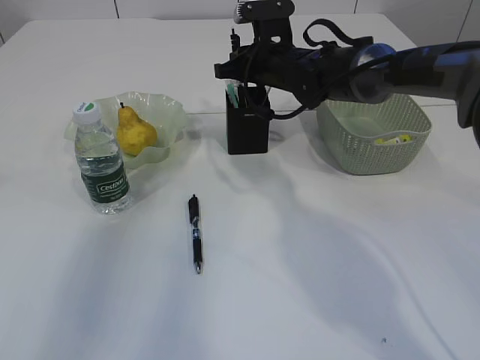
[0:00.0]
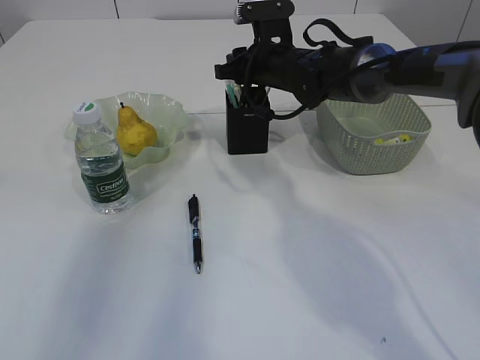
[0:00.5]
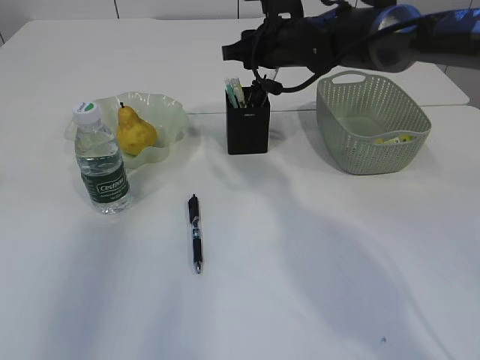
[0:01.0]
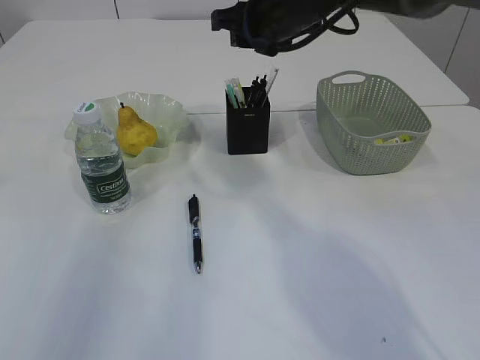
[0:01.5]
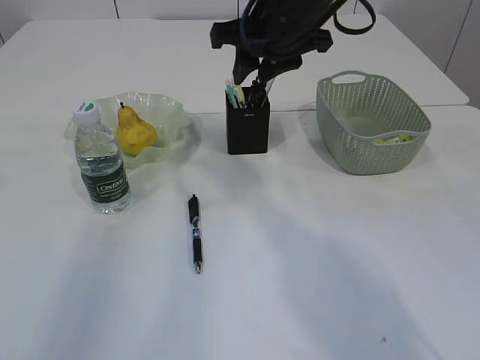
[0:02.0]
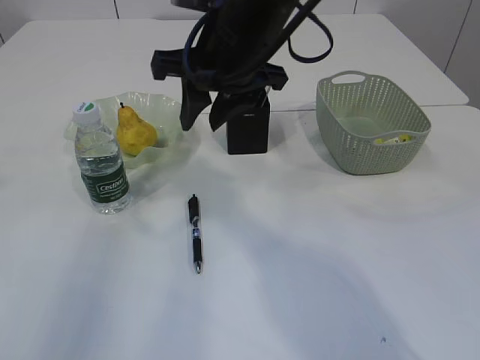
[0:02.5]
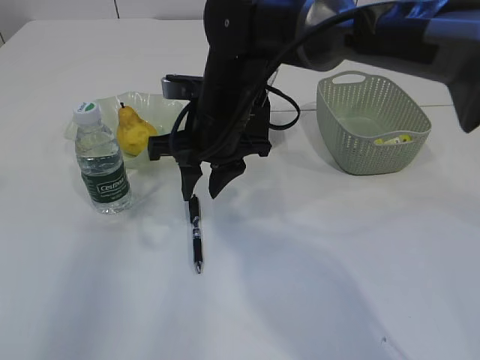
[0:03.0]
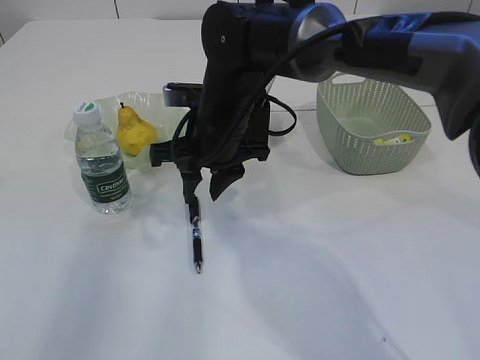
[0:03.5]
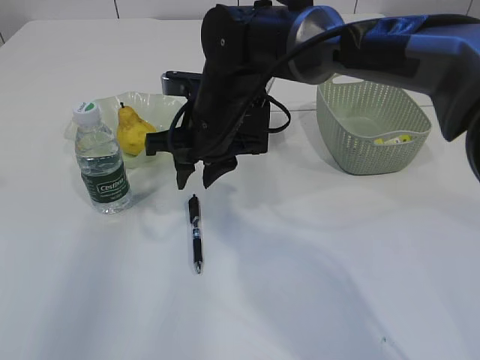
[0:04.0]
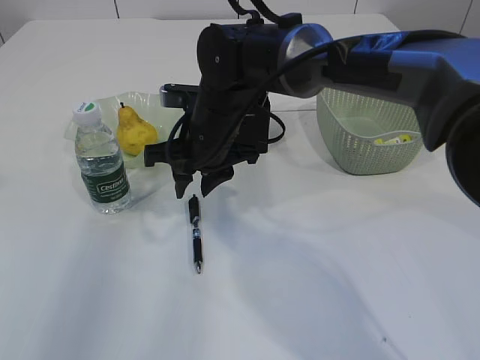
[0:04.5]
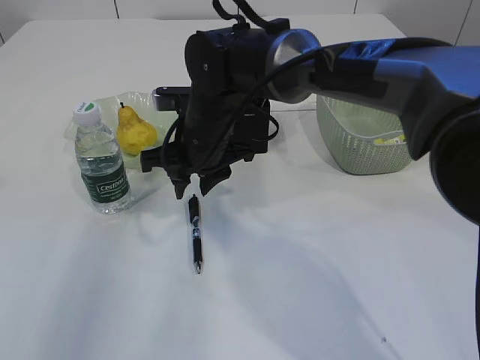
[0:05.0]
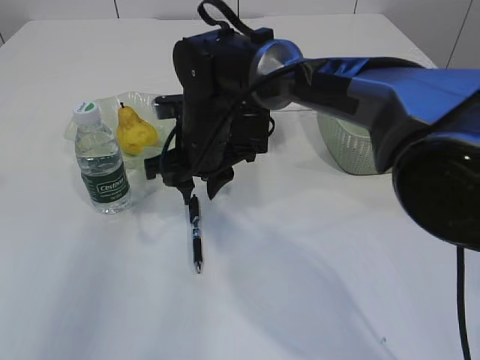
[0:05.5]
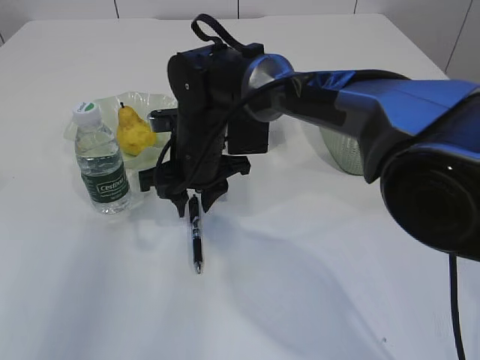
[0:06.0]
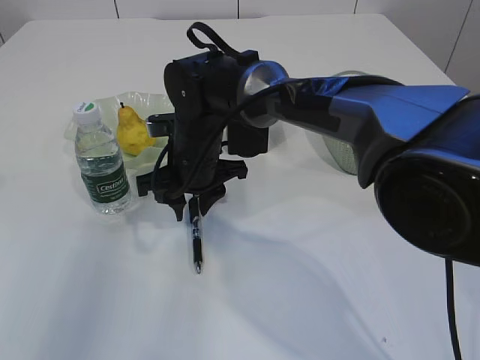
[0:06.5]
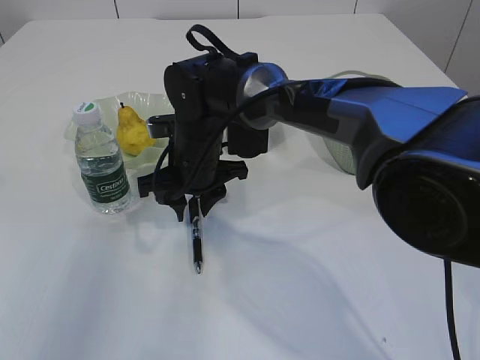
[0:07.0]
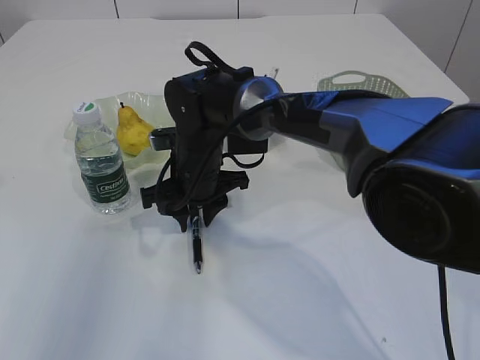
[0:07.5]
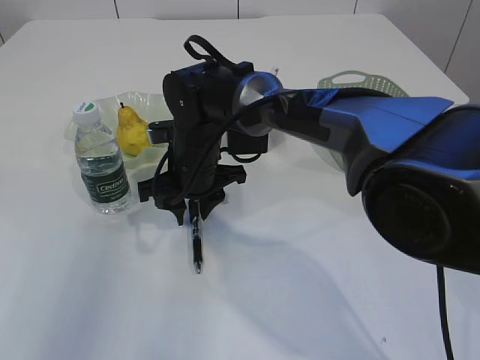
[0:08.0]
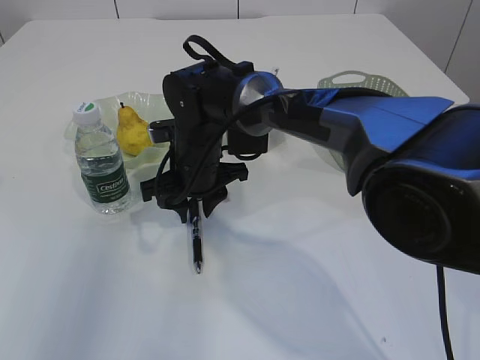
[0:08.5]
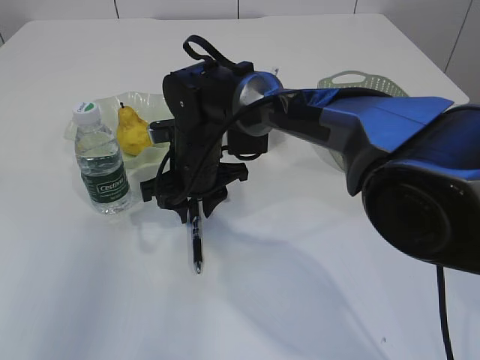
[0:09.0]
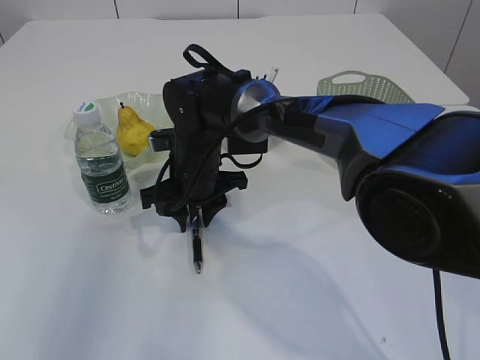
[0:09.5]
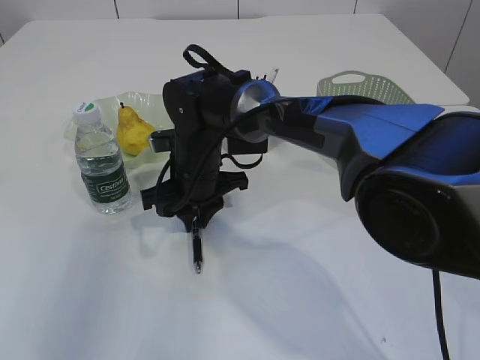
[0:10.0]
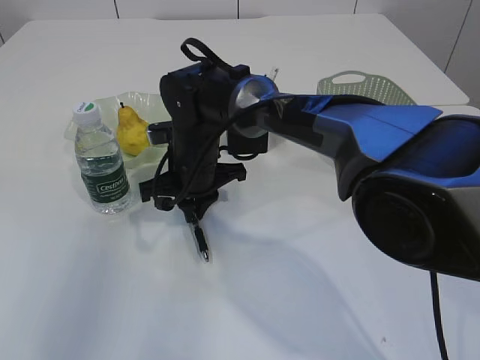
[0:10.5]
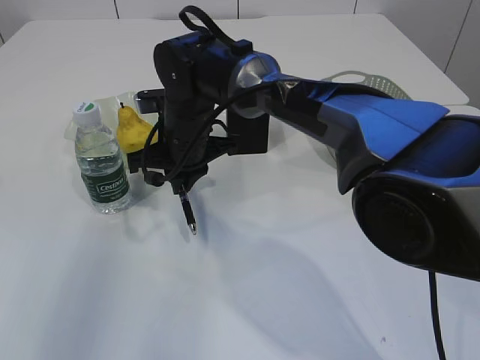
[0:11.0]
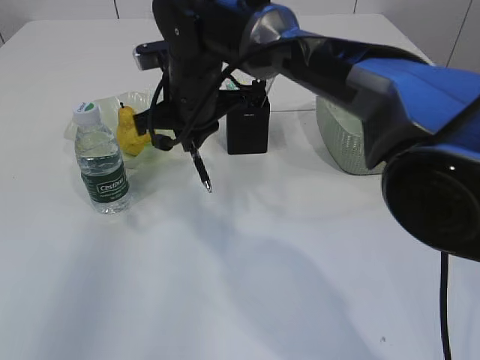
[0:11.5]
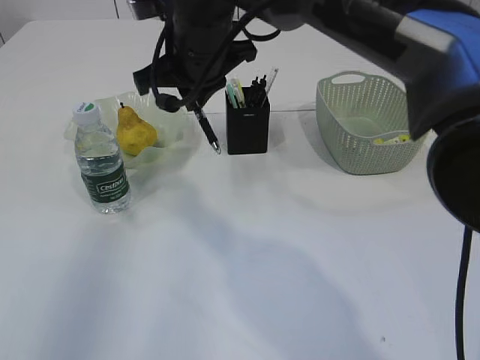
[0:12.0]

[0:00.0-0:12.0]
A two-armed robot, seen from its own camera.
Step, 0:01.5 to 0:10.5: Pick up the pen with right arm.
0:00.0 to 0:02.0: The right gripper is displaced upward and backward by about 15 cm, and opens.
0:02.0 to 0:04.0: The right gripper shifts approximately 15 cm downward and to the left.
0:06.0 to 0:08.0: The grippers move only a little.
0:08.0 to 0:10.0: Neither gripper changes place.
0:10.0 to 0:12.0: The right gripper heads upward, covering about 15 cm.

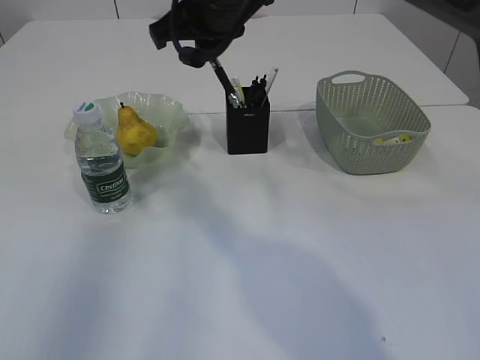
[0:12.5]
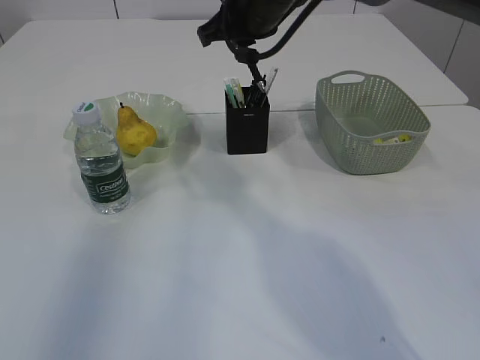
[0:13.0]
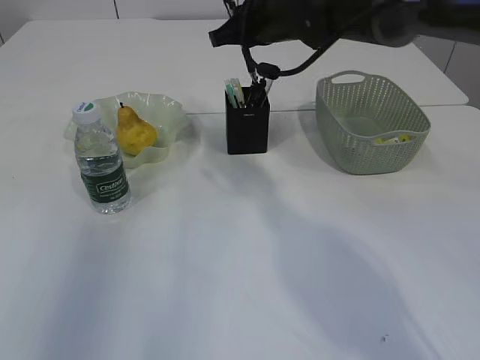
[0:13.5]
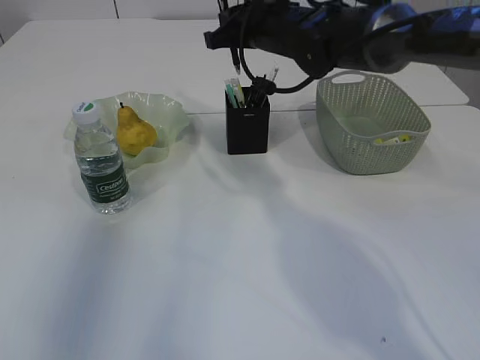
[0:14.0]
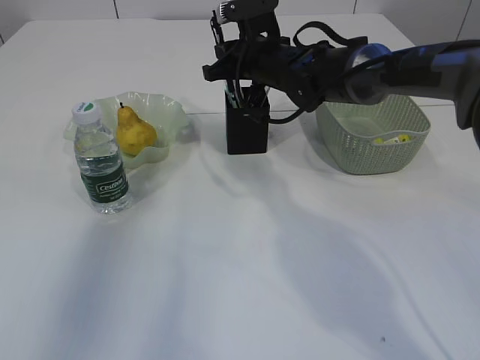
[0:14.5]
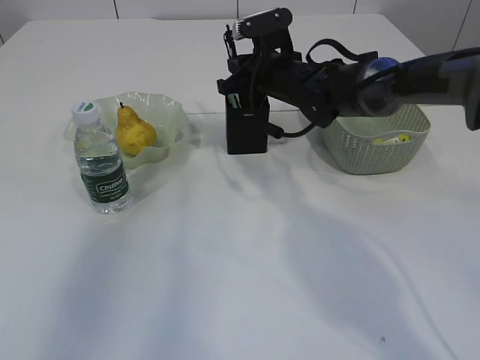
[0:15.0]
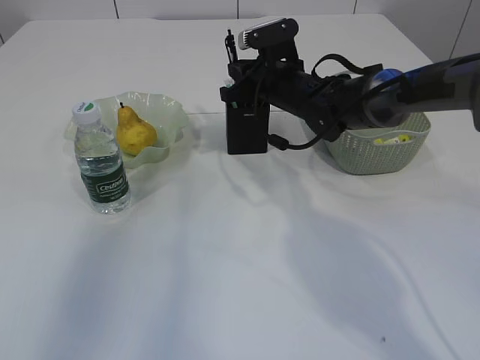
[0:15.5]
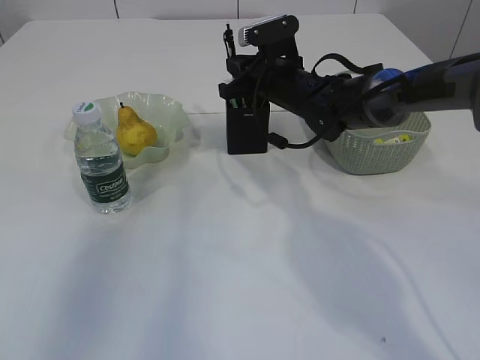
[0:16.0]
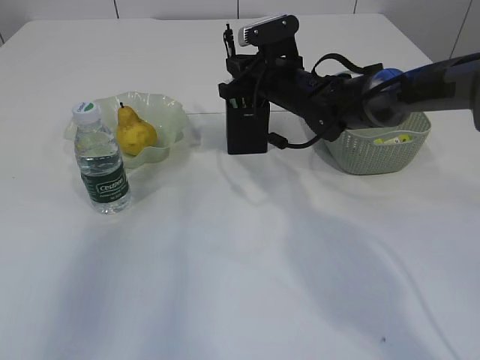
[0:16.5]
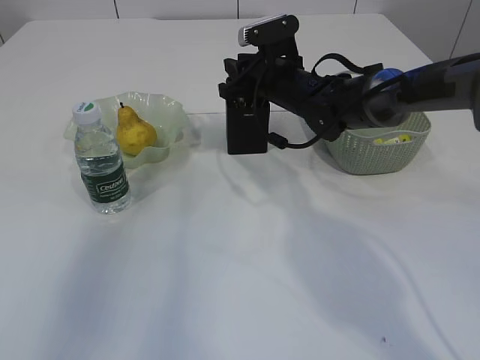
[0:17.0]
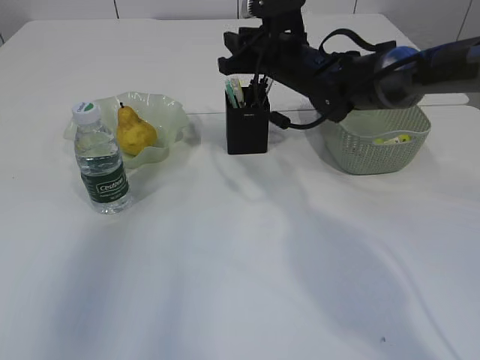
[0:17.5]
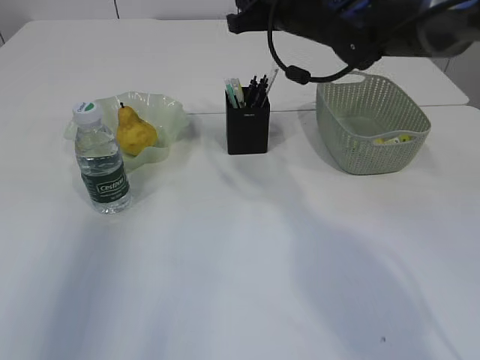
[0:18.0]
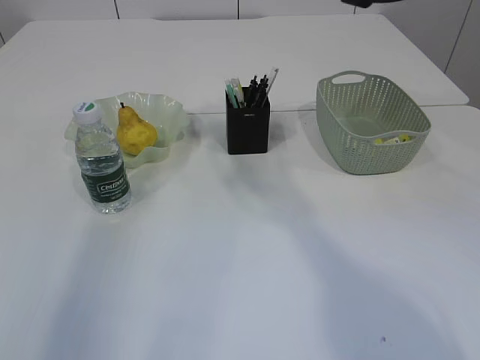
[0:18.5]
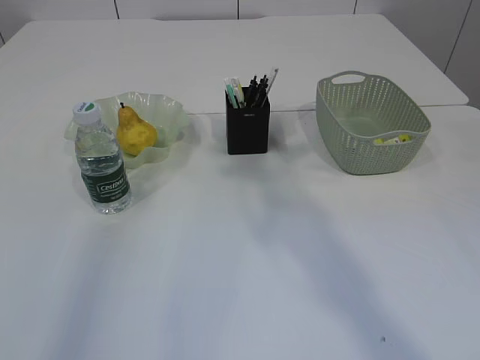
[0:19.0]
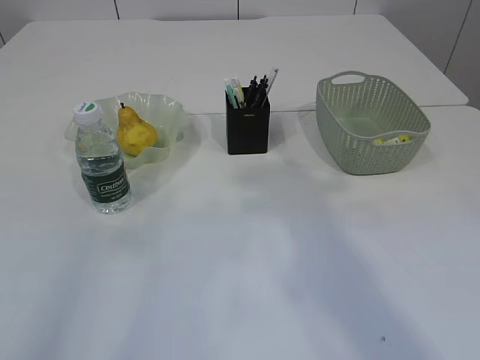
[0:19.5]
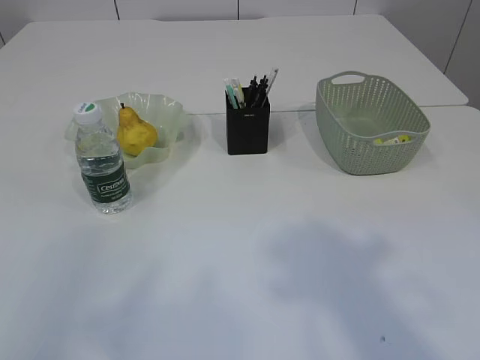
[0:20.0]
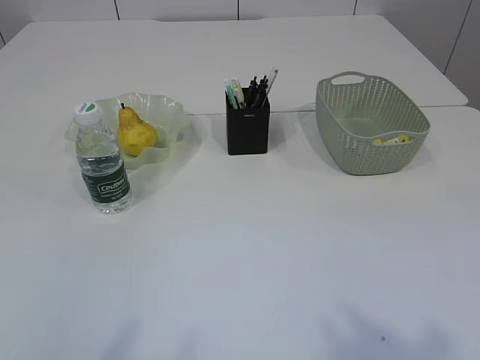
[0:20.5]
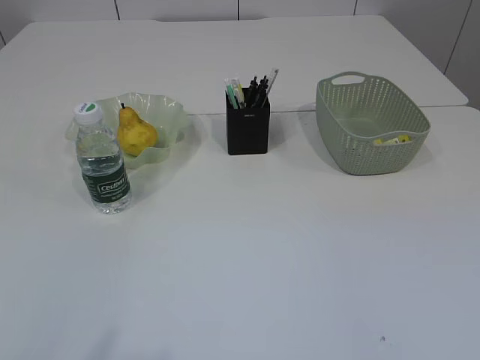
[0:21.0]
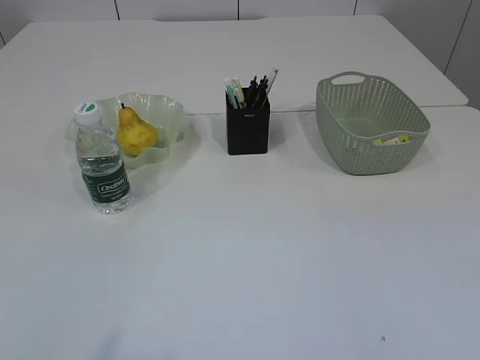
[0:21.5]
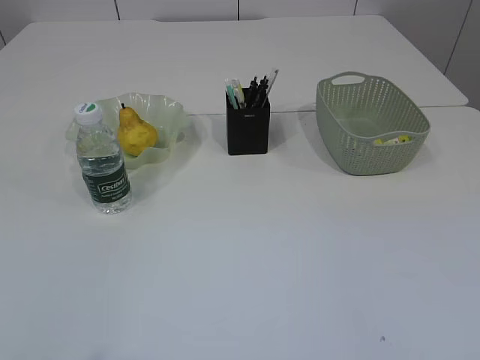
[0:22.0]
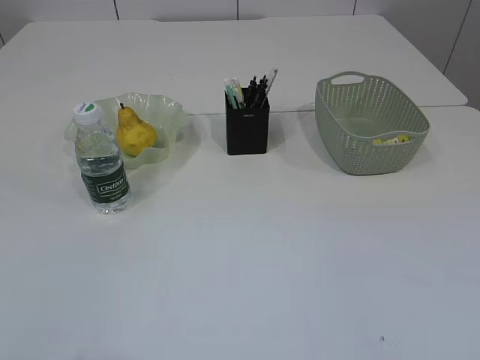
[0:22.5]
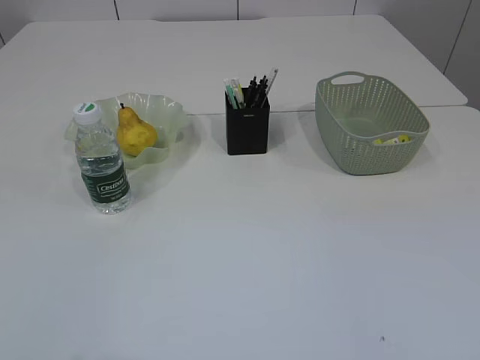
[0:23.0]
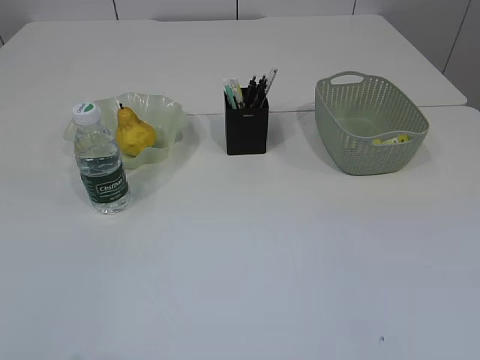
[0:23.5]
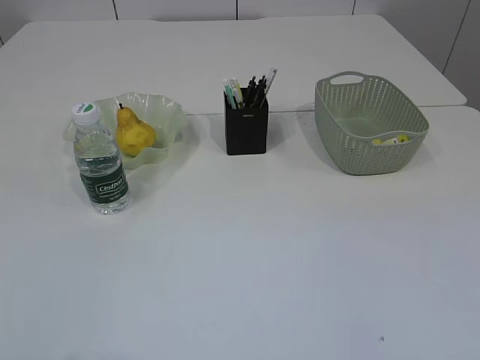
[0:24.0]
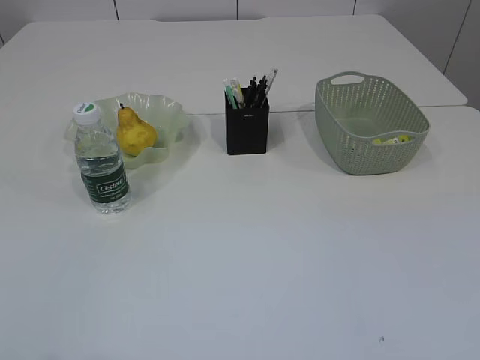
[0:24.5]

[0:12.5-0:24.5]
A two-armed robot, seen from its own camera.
Step, 0:12.5 to 0:17.0: Place the pen into the pen holder.
0:12.5 to 0:14.5: The right gripper travels downward, forward and to the right by roughly 15 cm.
0:14.5 to 0:16.5: There are only small adjustments of the grippers.
0:16.5 to 0:18.5: The right gripper travels upward and backward by about 20 cm.
0:18.5 to 0:20.5: The right gripper moves backward, about 40 cm.

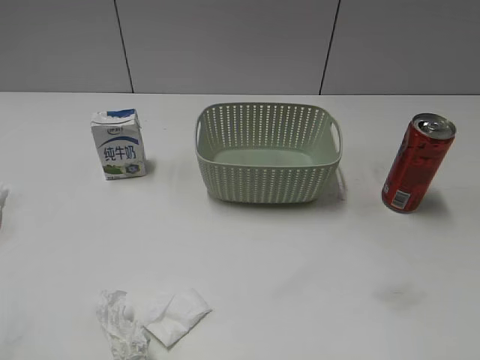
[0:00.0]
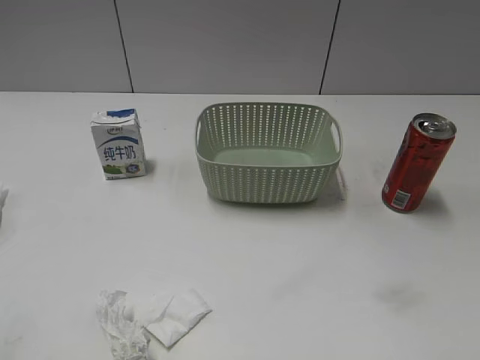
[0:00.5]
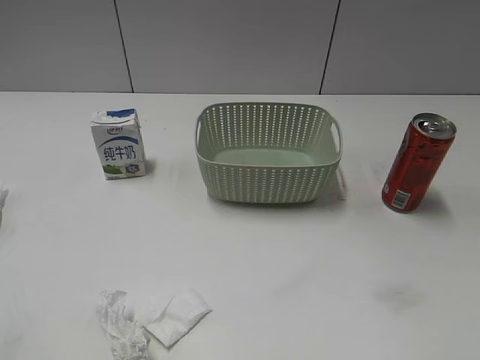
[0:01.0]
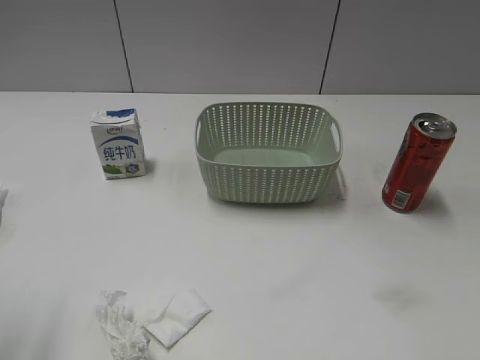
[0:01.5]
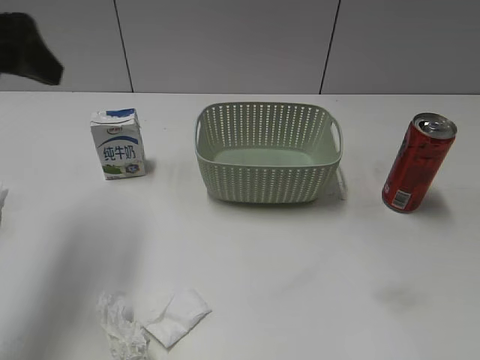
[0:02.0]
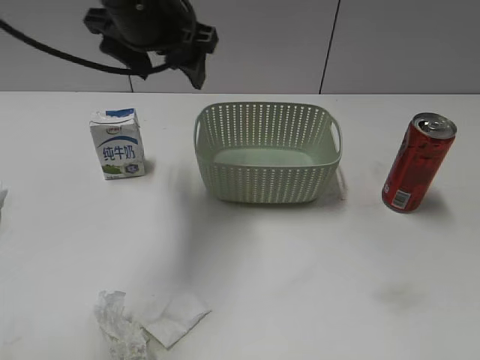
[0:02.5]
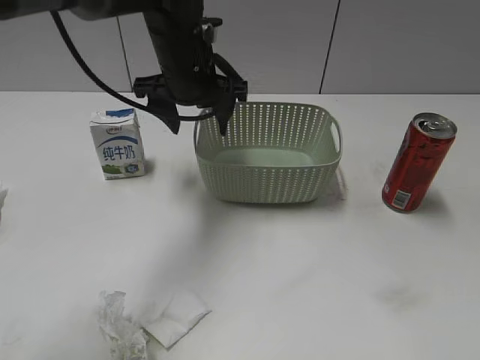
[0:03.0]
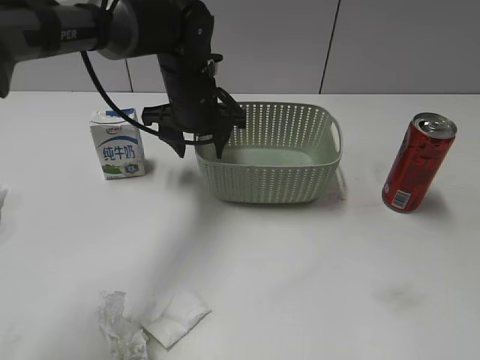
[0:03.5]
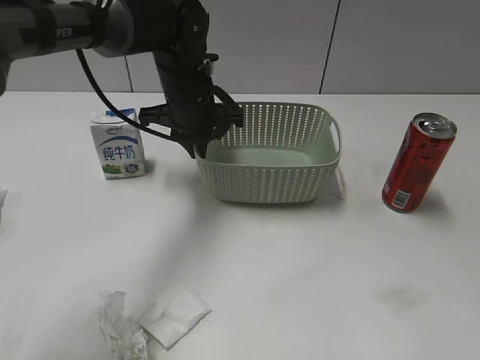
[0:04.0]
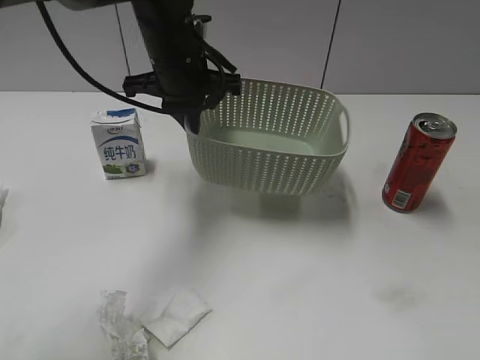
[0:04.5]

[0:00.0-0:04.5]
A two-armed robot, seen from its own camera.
Step, 0:02.0 to 0:04.0: Grasp the basket with left gripper.
0:02.0 to 0:04.5: The left gripper is displaced to the right, forward and downward by some 25 cm, and closes its fingers.
